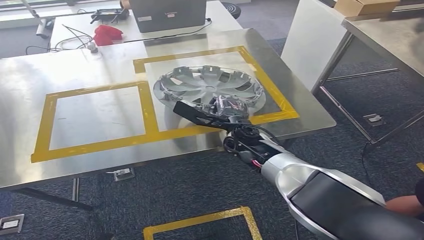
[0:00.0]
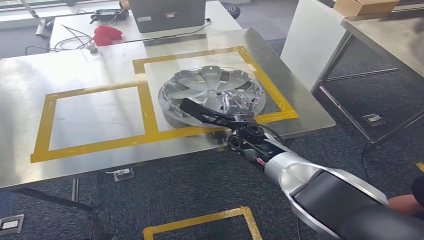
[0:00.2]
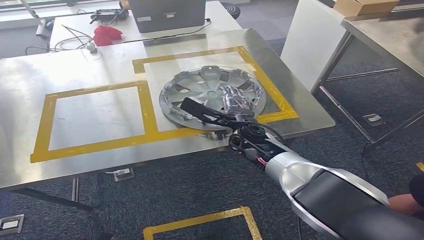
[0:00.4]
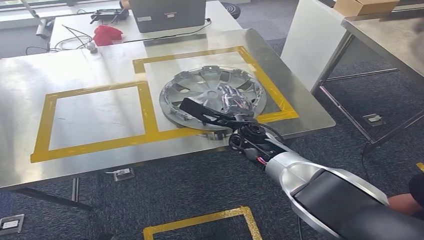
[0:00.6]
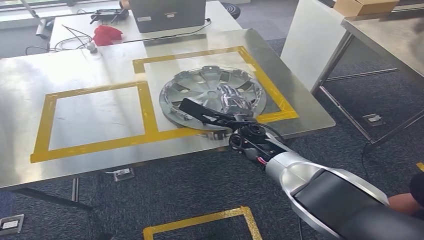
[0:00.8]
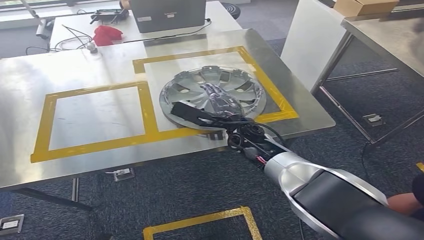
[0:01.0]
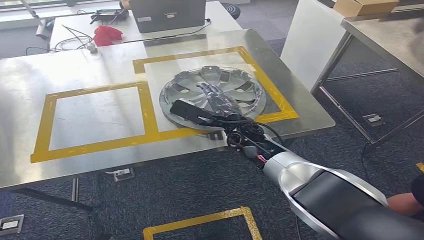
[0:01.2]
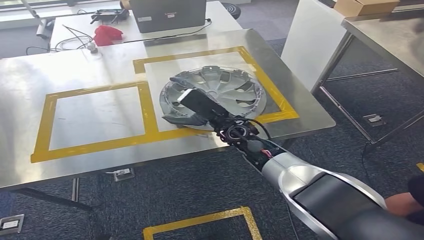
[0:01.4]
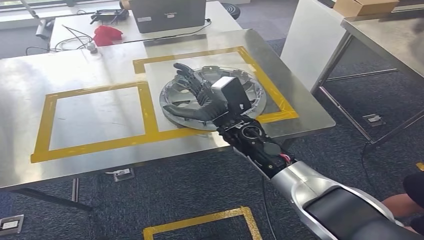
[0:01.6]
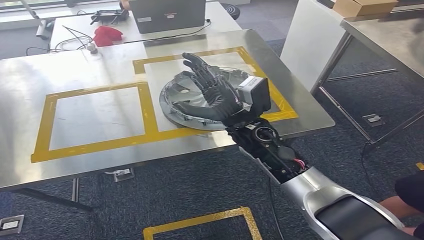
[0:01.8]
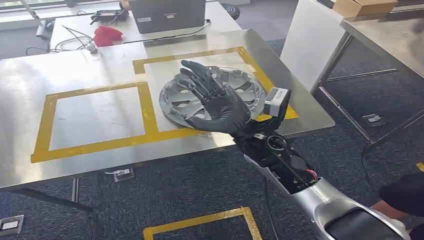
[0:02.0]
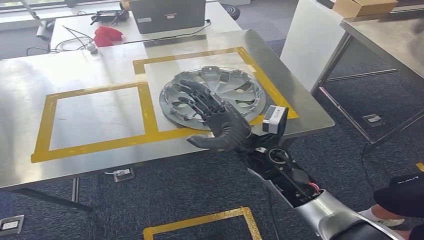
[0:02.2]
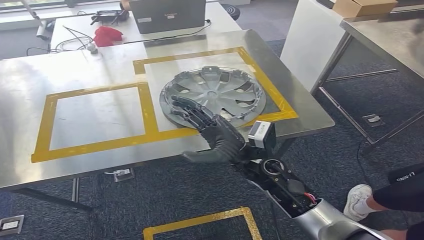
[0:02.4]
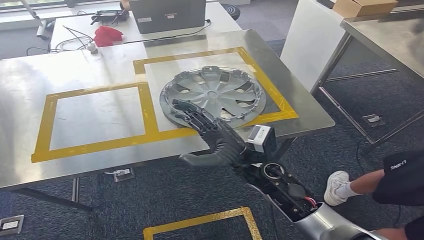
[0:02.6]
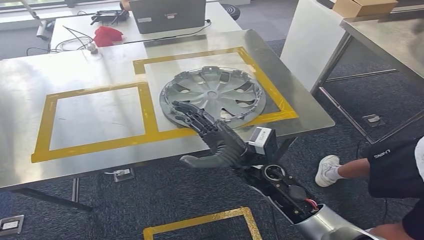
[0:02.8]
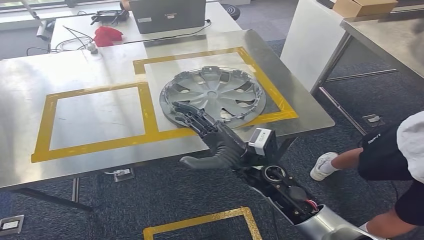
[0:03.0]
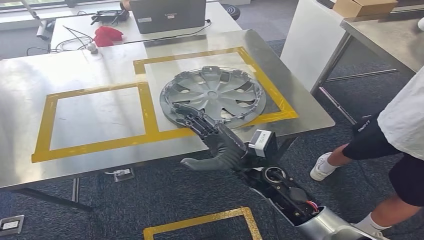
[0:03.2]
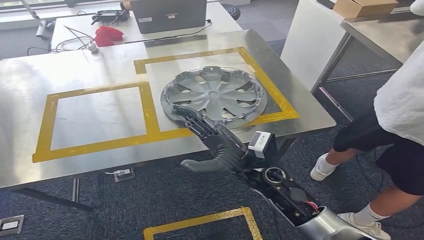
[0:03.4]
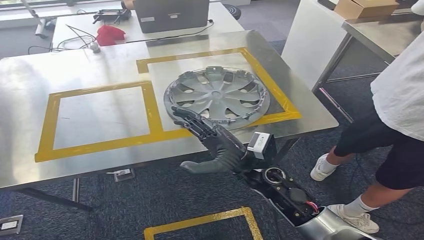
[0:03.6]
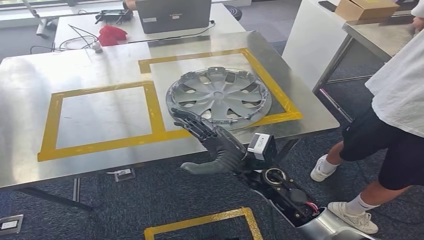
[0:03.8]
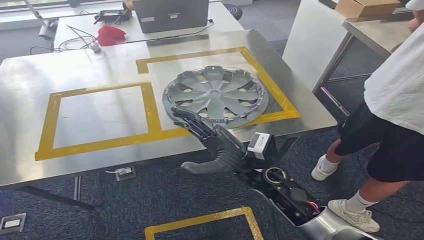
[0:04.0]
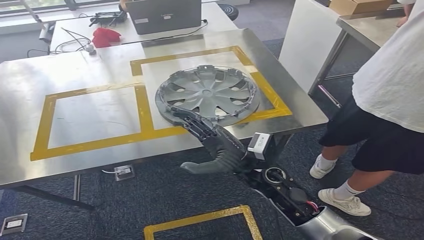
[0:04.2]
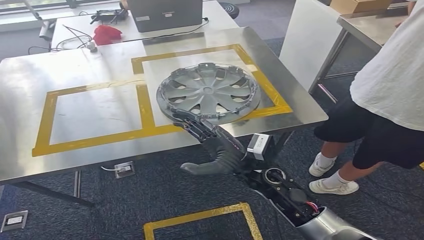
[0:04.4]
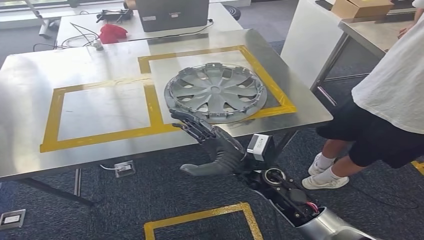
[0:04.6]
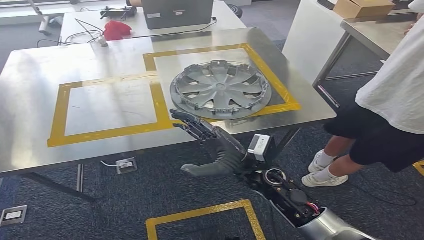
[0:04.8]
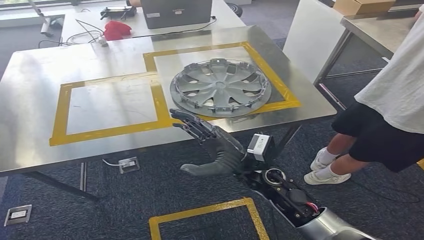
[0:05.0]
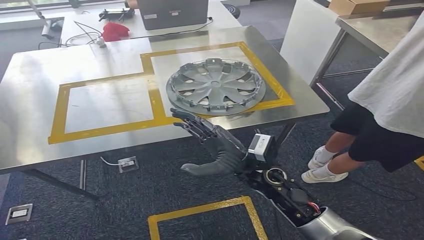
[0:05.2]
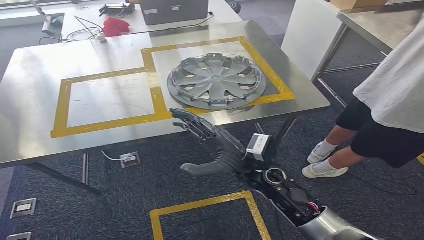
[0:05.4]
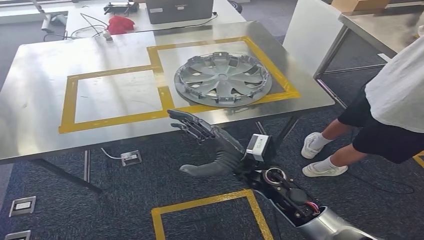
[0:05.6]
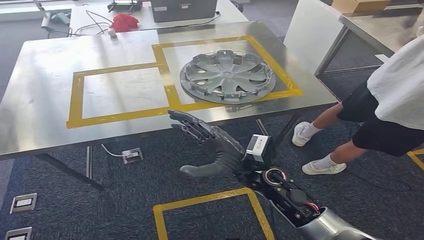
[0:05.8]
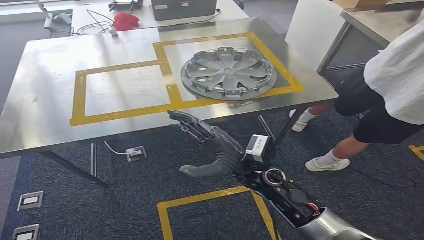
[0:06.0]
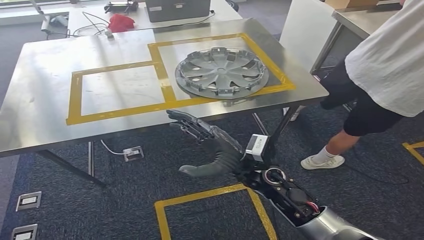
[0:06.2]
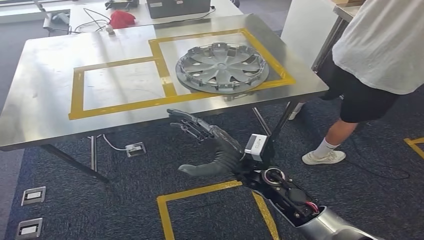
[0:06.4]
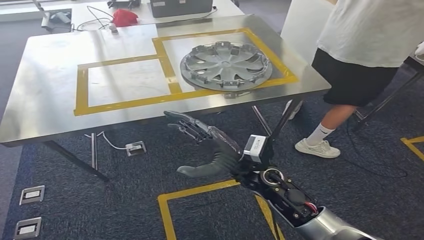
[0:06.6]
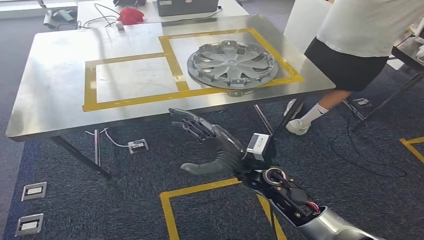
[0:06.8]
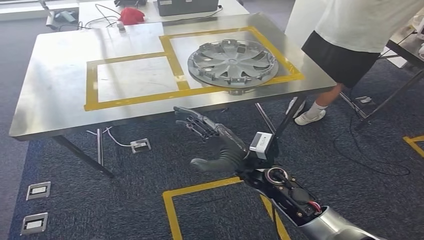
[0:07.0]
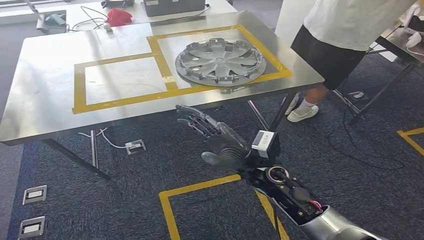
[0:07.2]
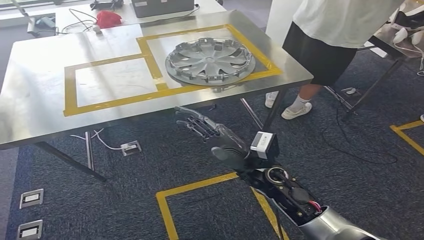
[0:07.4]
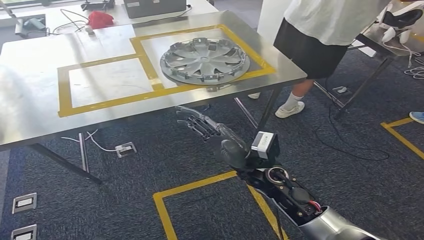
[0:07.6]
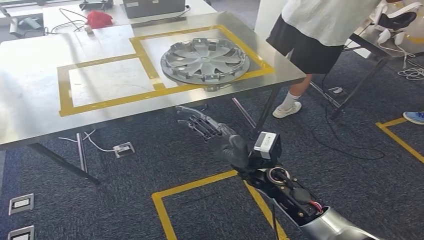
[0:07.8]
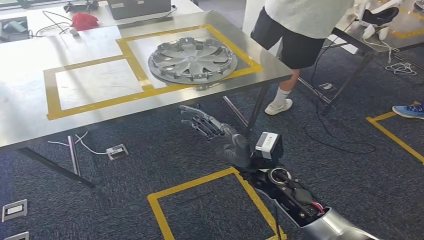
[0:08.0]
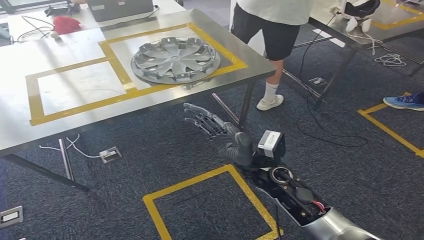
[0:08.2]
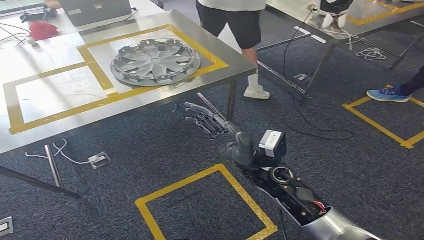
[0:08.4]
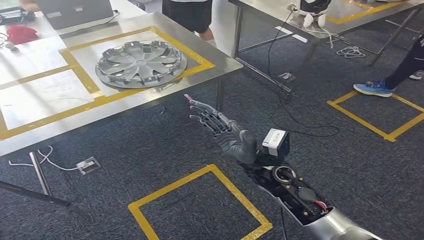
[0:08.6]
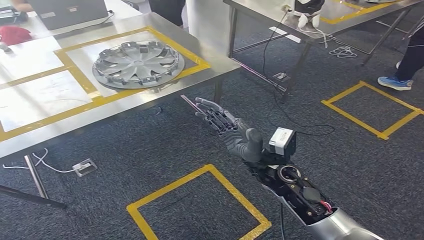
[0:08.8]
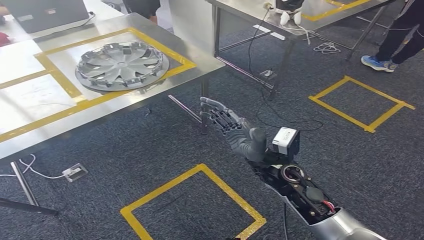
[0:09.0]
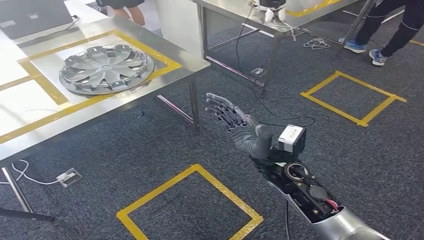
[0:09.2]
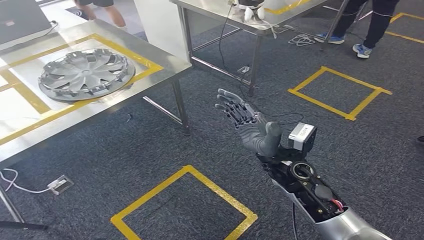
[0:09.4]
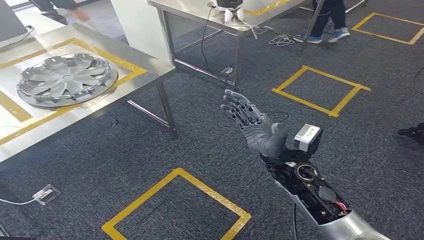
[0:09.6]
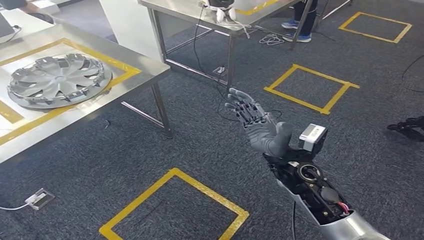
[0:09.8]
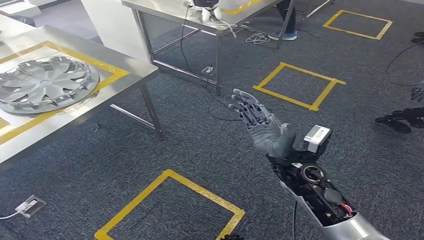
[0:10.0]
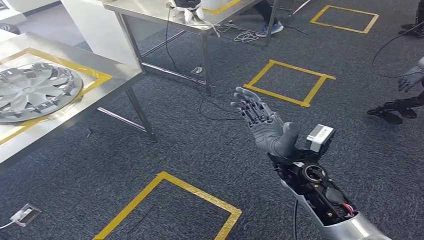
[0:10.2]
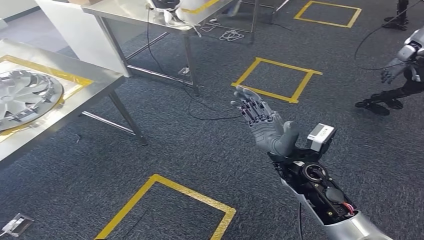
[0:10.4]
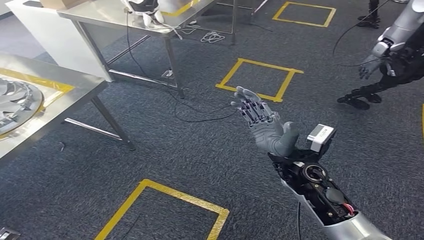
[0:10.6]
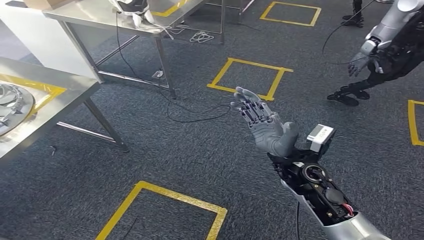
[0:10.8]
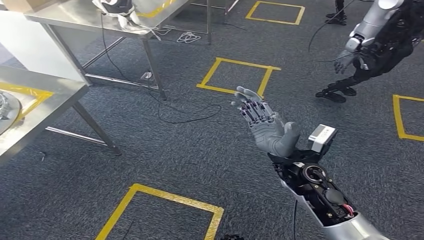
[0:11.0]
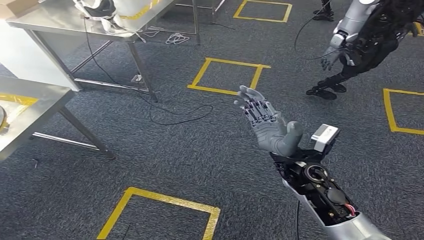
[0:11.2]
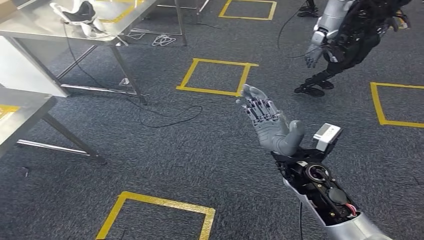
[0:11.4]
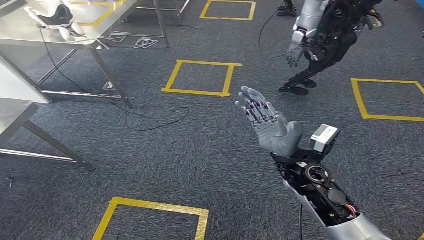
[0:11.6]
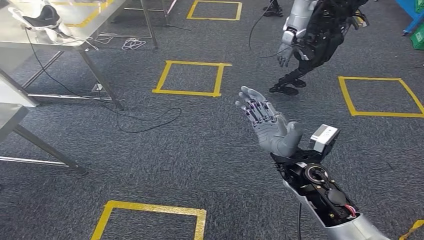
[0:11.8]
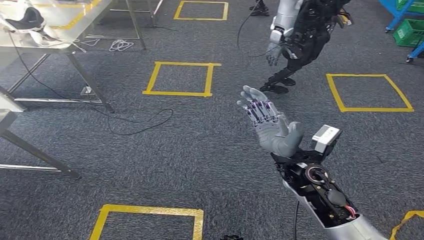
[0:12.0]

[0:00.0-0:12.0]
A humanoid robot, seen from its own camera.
0:01.6 to 0:03.0: The right hand shifts some 10 cm backward.

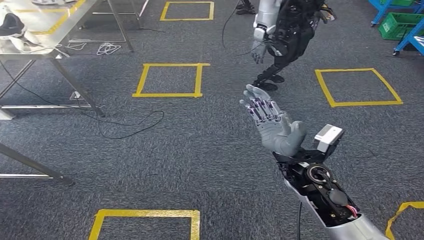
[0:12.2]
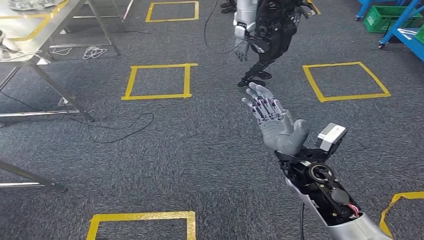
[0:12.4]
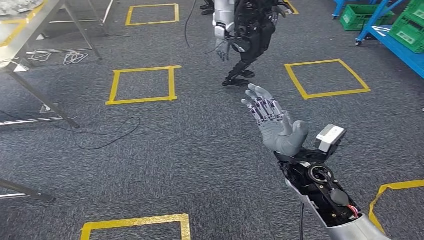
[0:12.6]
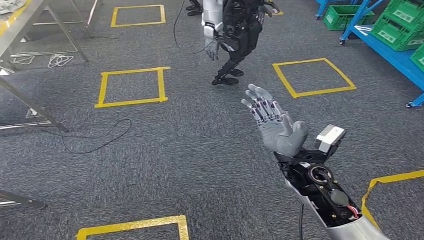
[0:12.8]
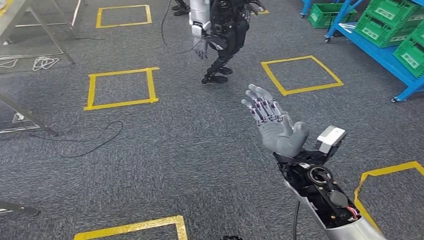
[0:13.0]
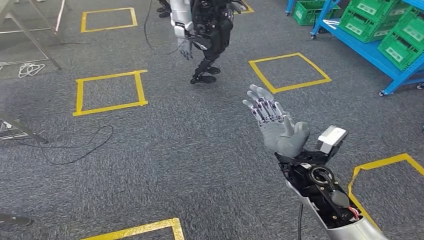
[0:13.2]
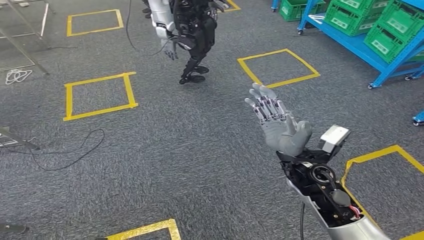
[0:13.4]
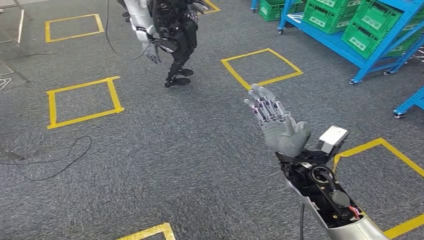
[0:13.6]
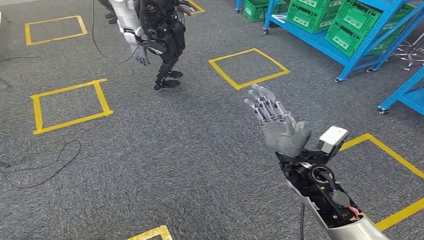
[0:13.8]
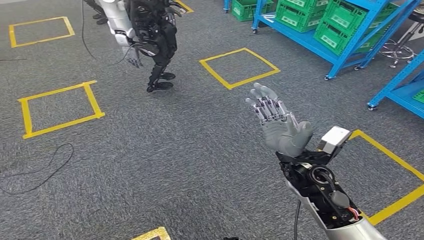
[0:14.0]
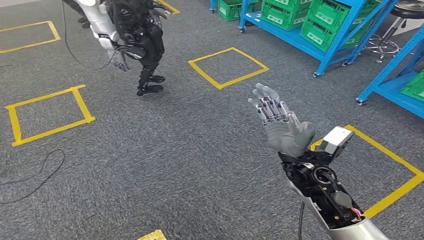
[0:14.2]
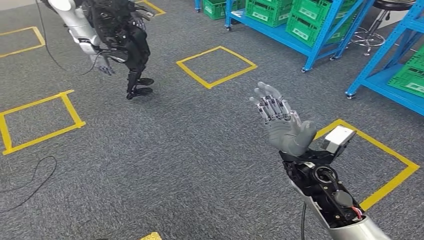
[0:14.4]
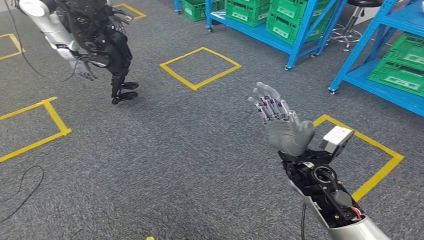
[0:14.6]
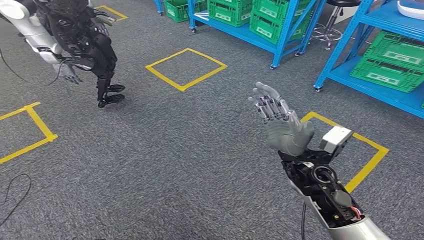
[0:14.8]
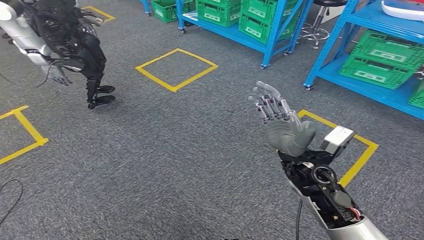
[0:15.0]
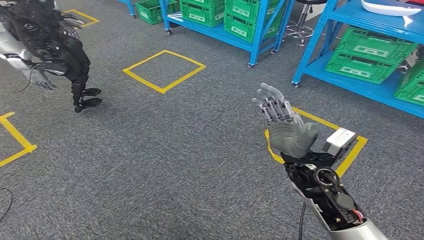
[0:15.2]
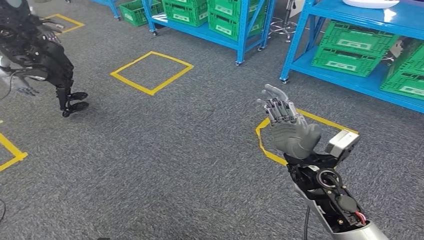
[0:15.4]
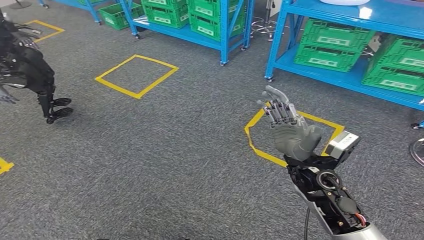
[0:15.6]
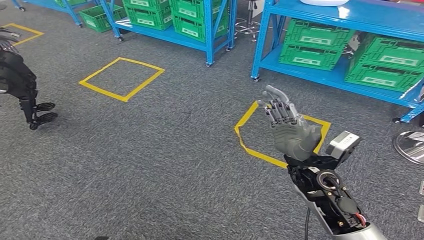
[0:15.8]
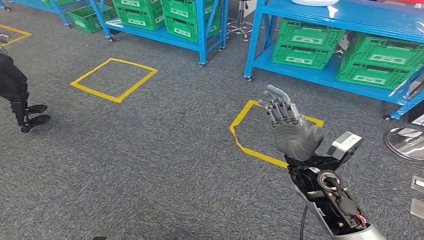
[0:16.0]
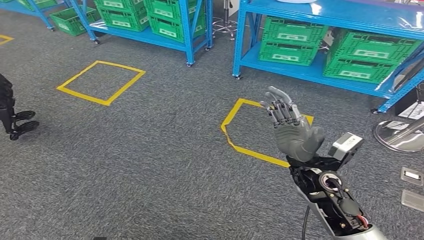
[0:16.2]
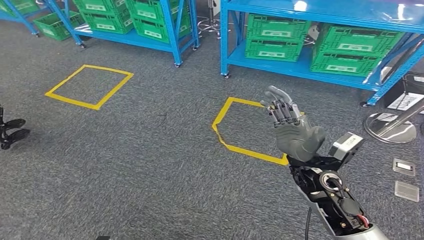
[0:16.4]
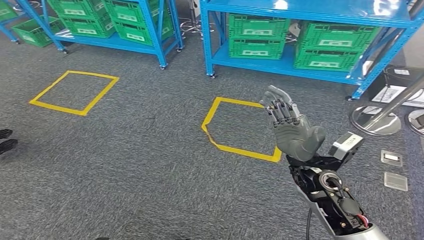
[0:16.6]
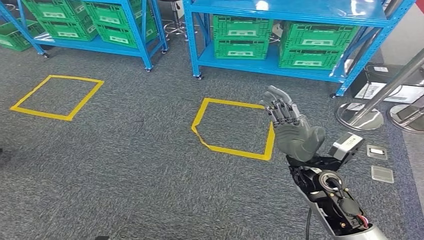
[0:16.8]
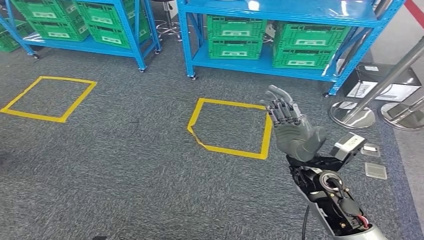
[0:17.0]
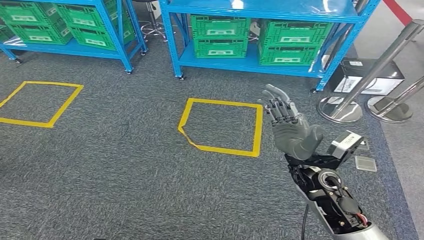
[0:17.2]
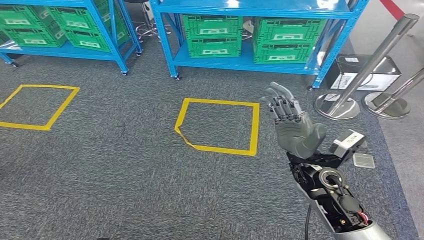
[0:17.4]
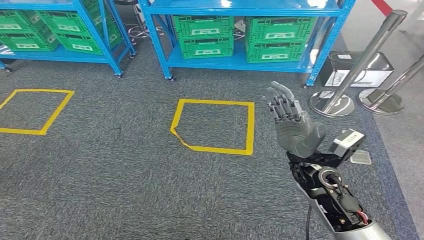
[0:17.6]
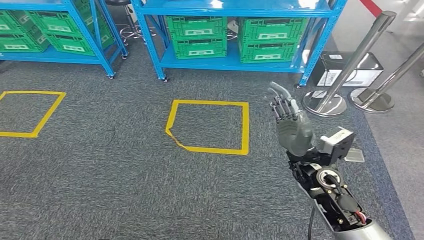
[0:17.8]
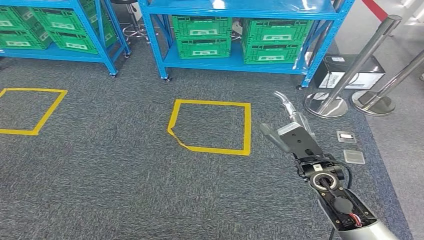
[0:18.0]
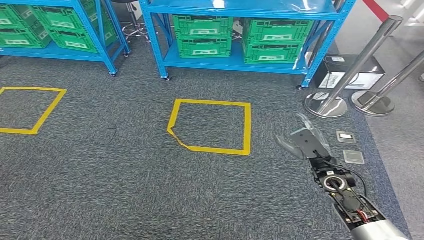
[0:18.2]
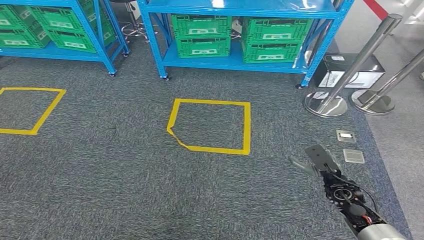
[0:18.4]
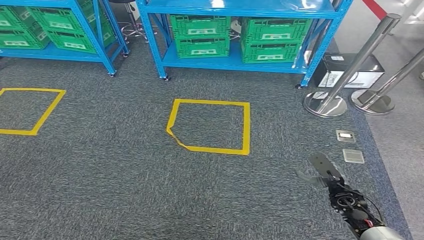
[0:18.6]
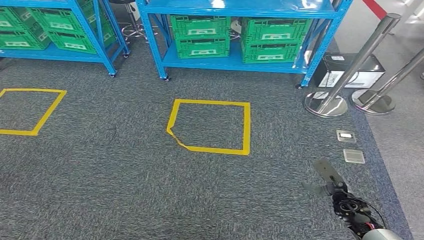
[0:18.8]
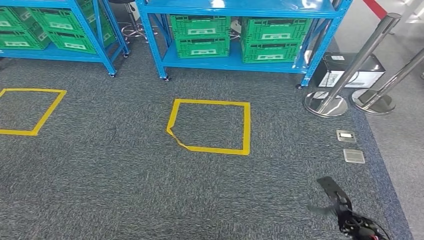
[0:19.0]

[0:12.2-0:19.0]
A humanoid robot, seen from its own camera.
Step, 0:12.2 to 0:19.0: Return to the initial position at the workbench.
0:17.6 to 0:19.0: The right hand shifts some 30 cm downward and to the right.
